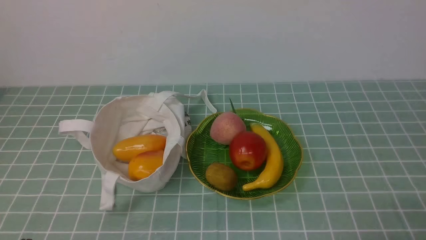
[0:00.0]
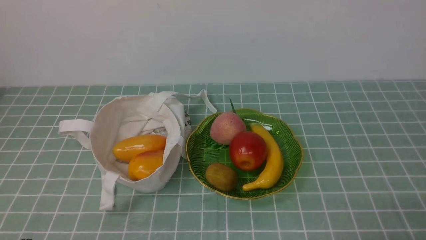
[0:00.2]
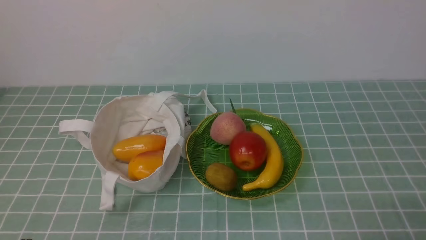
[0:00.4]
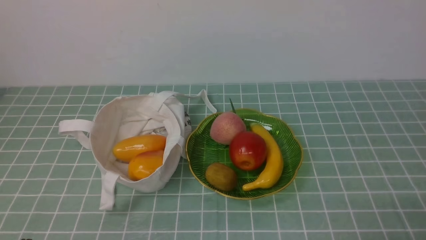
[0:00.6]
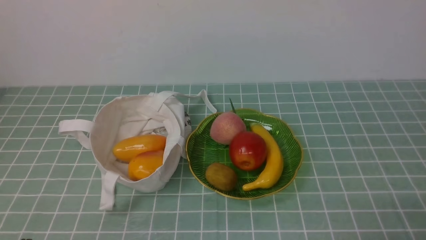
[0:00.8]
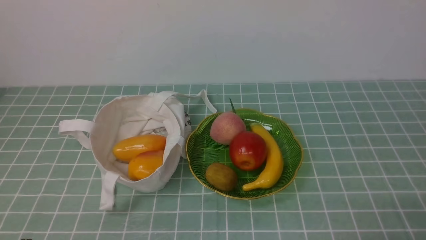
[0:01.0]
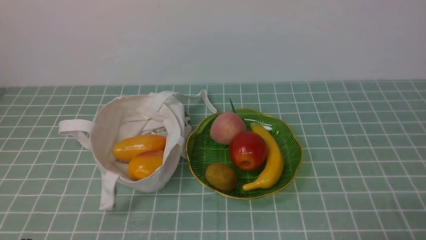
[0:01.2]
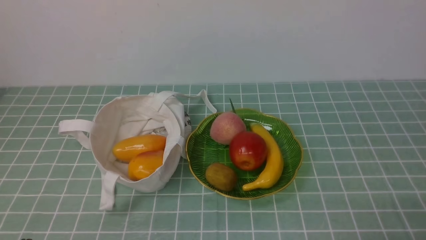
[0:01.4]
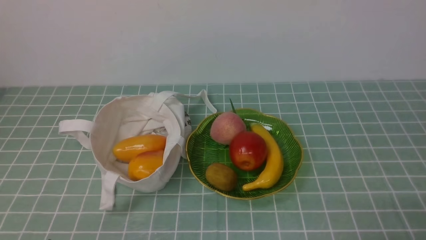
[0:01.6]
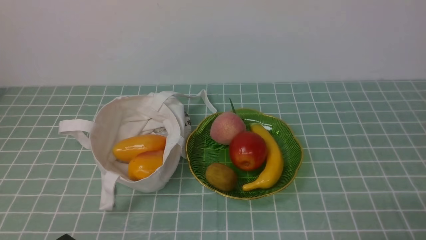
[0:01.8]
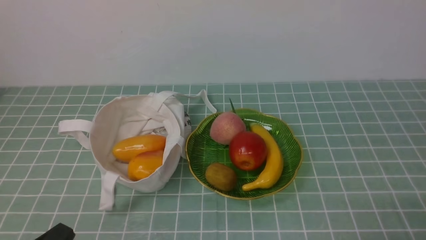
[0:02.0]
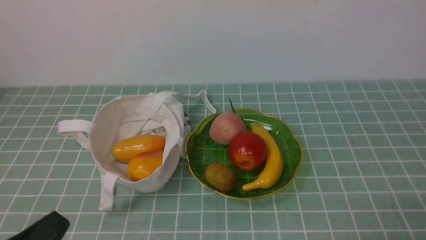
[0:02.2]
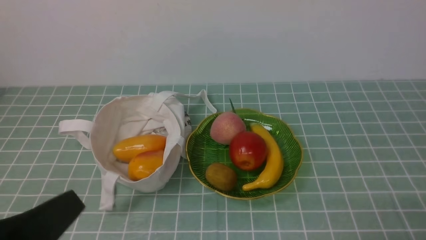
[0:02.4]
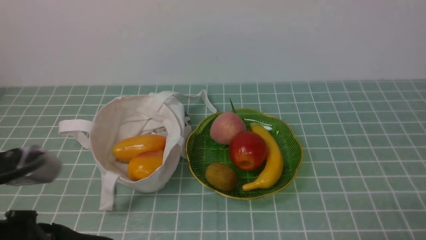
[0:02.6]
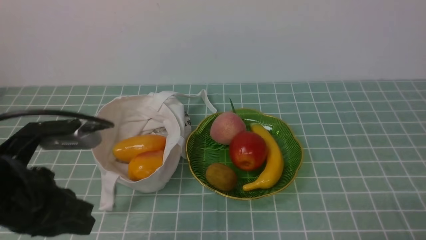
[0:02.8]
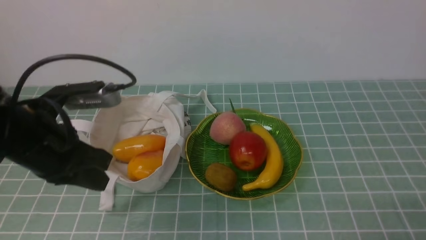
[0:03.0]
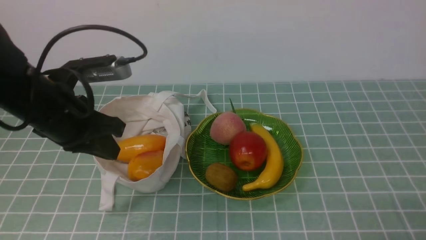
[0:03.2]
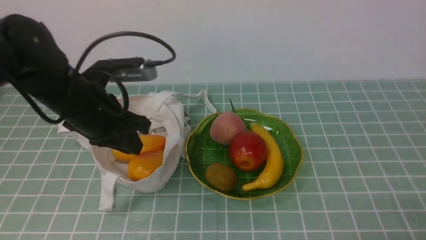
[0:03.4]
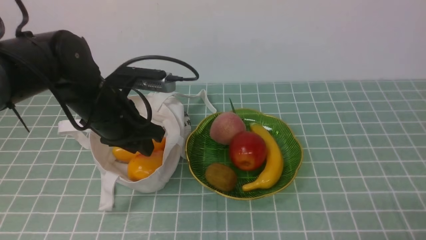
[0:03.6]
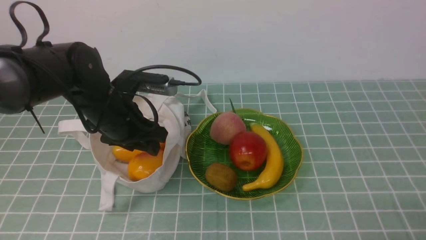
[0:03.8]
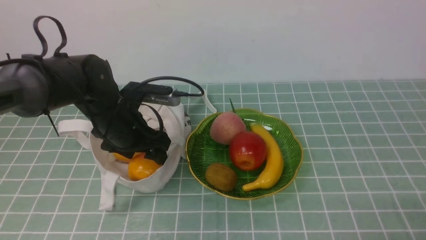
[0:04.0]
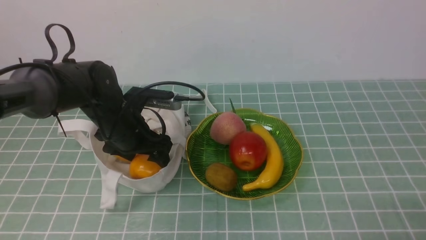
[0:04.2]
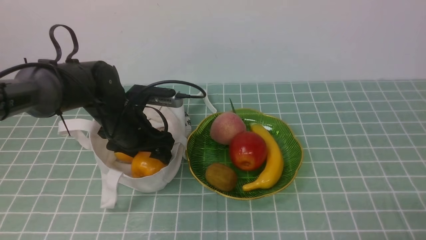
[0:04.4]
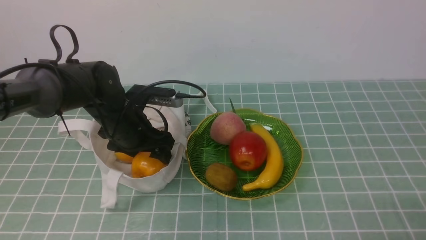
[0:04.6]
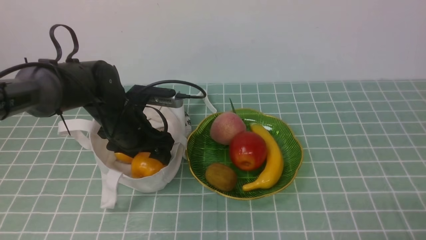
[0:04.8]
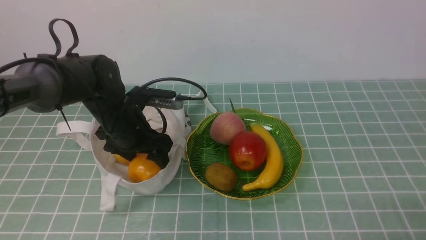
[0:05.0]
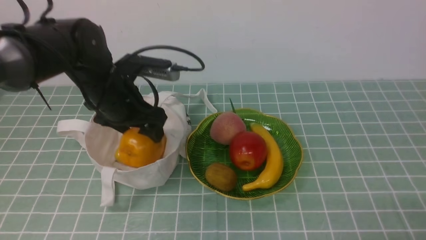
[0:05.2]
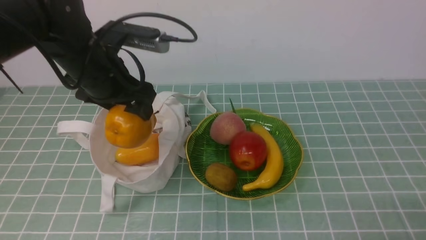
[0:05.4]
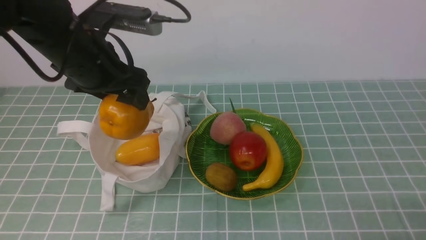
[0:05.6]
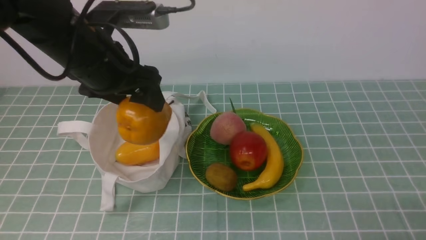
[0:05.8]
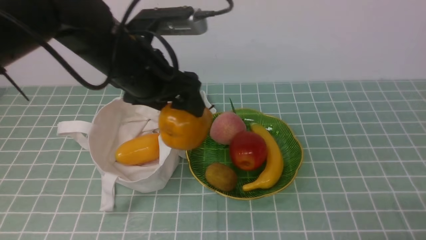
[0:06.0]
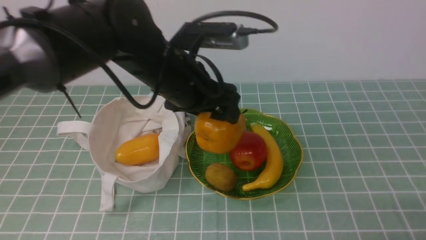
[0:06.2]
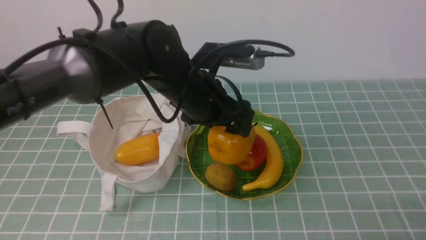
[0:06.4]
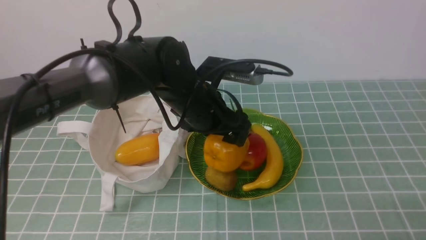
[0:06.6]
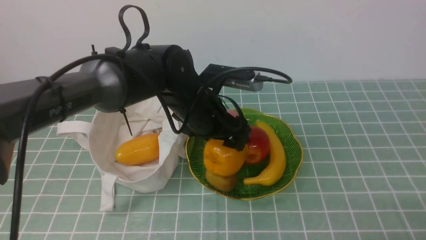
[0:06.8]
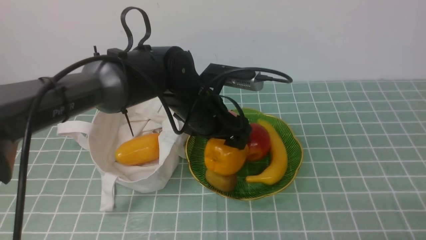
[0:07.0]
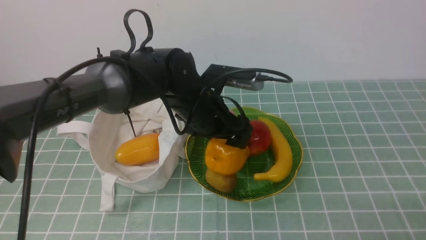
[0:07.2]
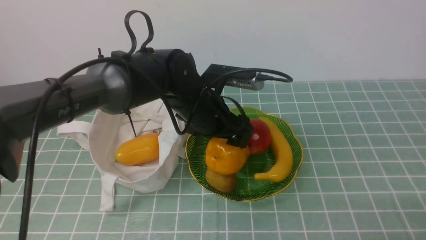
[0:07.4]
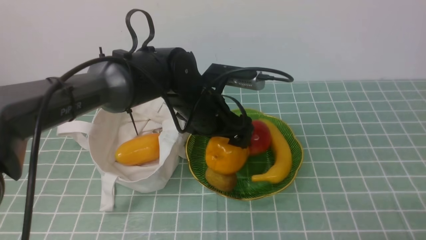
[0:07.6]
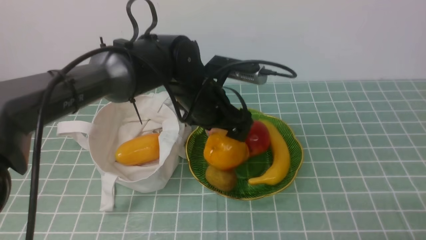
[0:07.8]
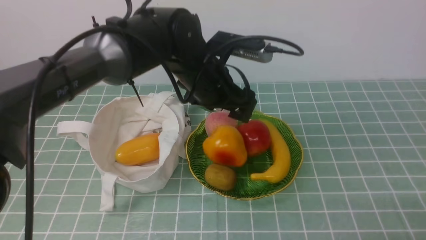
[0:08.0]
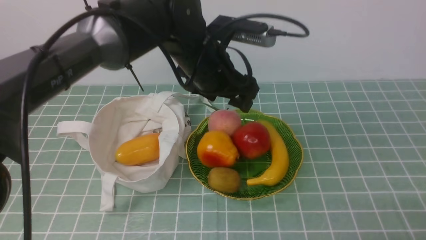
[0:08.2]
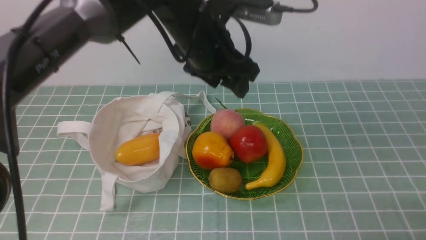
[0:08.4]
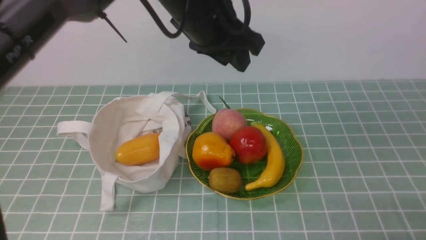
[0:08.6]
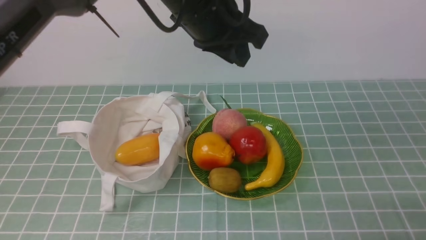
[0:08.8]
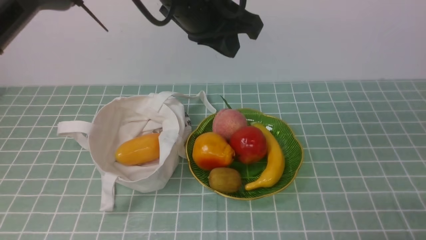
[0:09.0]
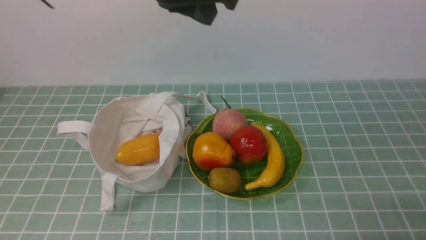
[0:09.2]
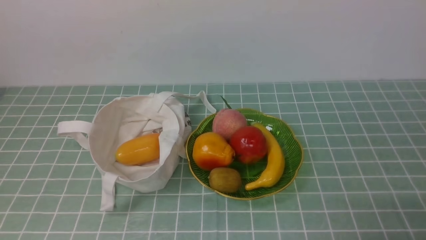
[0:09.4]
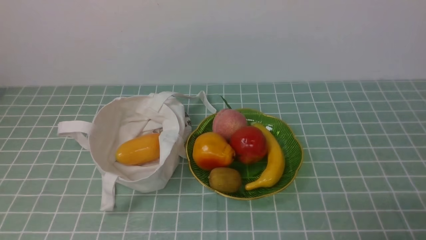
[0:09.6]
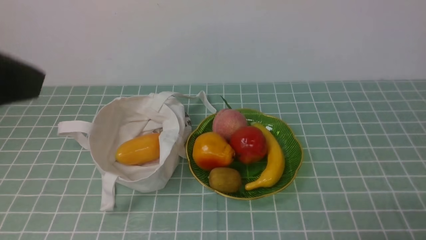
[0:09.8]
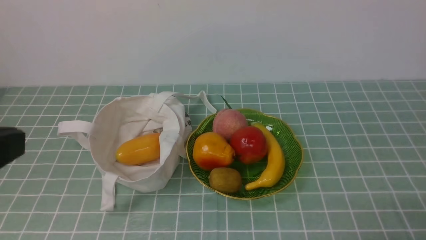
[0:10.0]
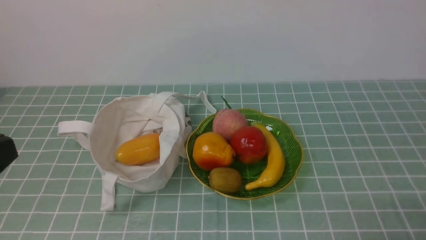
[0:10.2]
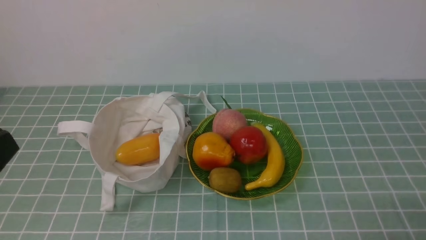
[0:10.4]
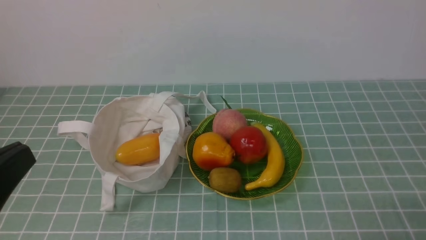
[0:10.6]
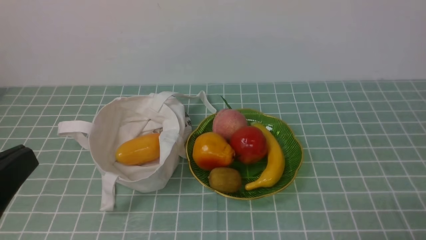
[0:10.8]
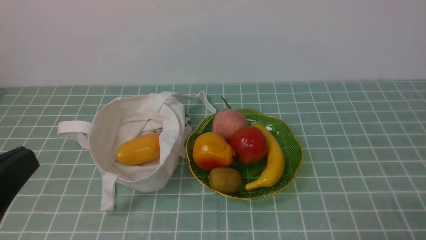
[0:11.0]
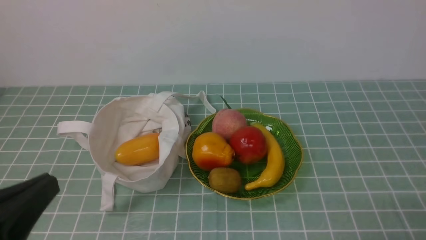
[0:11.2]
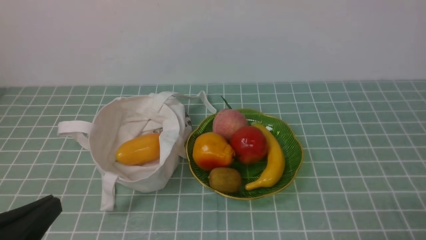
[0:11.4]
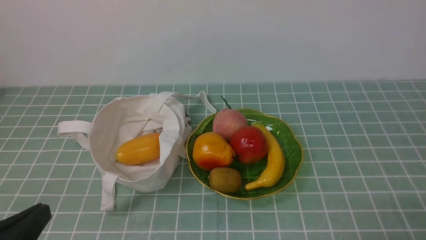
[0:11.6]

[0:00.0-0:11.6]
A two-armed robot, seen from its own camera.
Step, 0:00.0 to 0:05.4: use the left arm to grab a pear from the bag.
Step, 0:05.6 to 0:07.8: use the left arm to put the pear into the empty plate on the right.
0:01.4 to 0:02.8: The left gripper is displaced upward and forward by approximately 15 cm.
0:02.8 to 0:04.4: The left gripper shifts roughly 25 cm forward and downward, and opens up.
0:04.4 to 0:05.8: The left gripper travels upward by roughly 15 cm.
0:05.8 to 0:07.2: The left gripper moves to the right and downward, approximately 15 cm.
0:07.2 to 0:08.8: The left gripper heads upward, covering about 15 cm, and closes up.
0:08.8 to 0:10.2: The left gripper goes approximately 35 cm backward and to the left.
0:10.2 to 0:11.6: The left gripper goes about 15 cm downward.

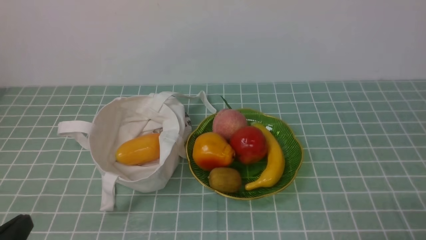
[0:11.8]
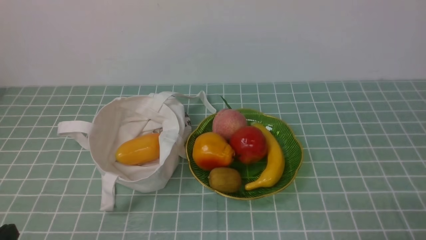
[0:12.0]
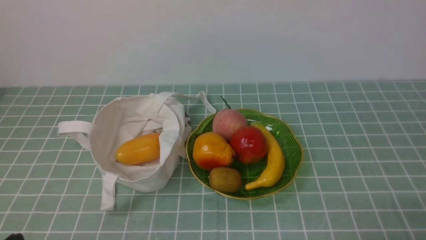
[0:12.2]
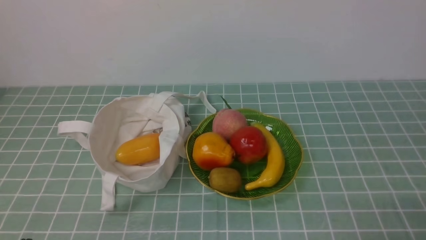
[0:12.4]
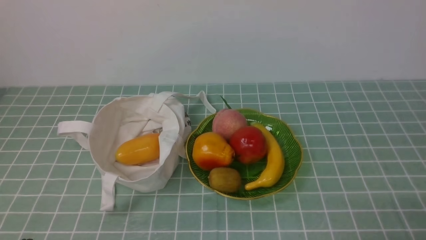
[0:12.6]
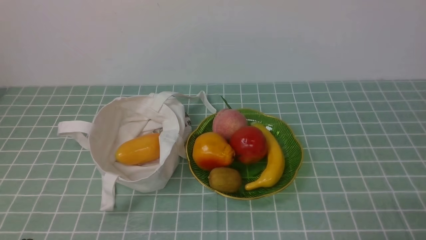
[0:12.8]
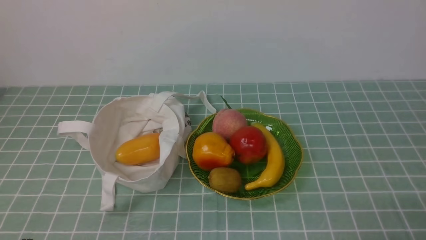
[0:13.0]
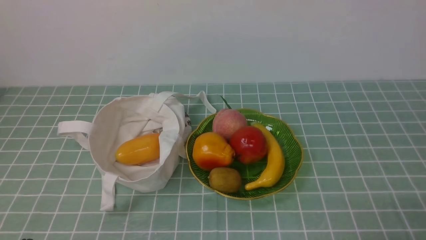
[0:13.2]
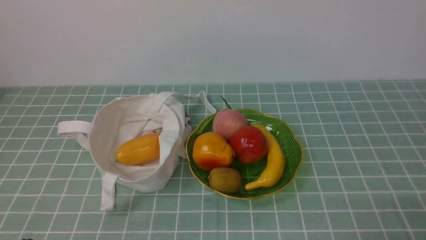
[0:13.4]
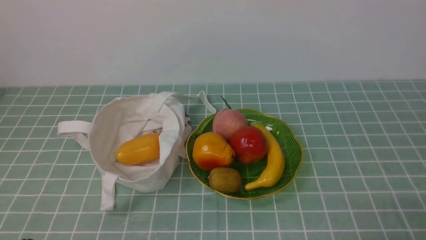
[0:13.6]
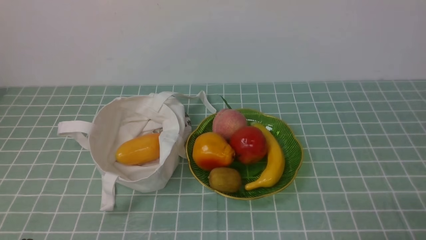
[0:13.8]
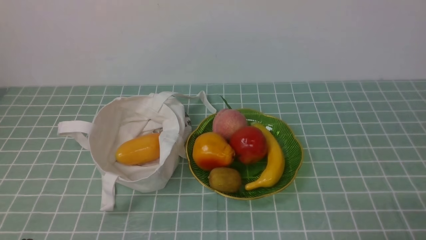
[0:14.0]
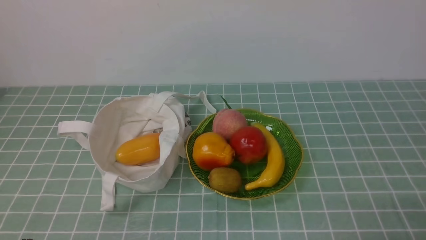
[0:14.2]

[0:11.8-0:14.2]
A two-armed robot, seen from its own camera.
0:11.8 to 0:13.0: The left gripper is displaced downward by roughly 5 cm.
0:13.0 to 0:14.2: Both grippers stay about where they are.

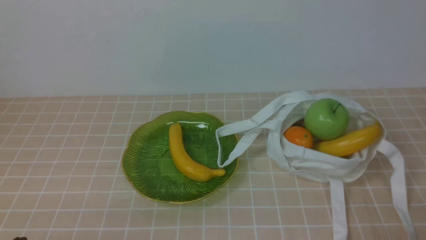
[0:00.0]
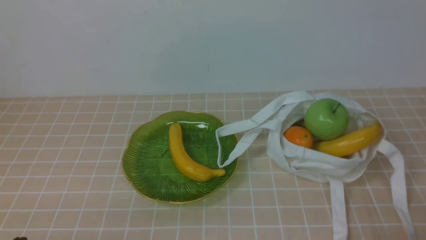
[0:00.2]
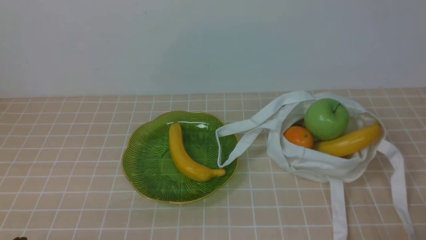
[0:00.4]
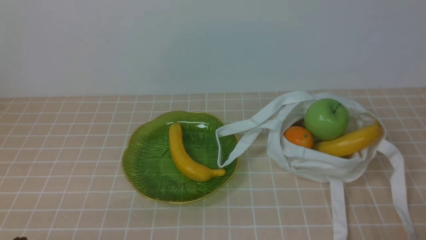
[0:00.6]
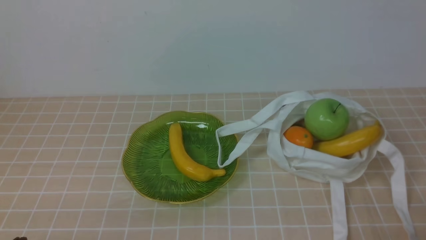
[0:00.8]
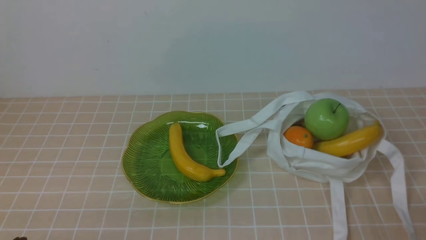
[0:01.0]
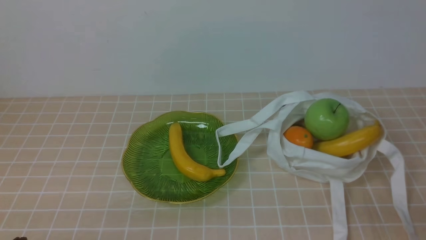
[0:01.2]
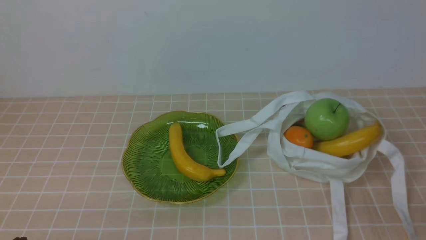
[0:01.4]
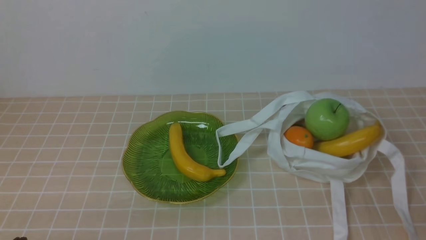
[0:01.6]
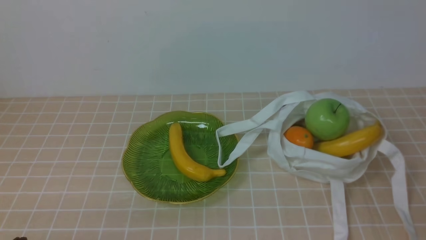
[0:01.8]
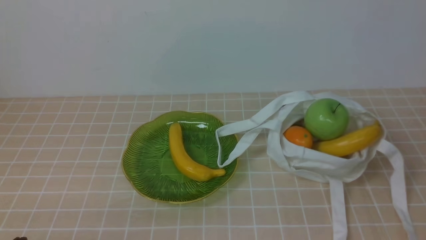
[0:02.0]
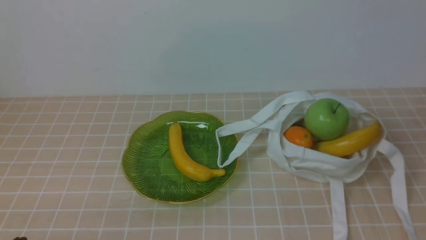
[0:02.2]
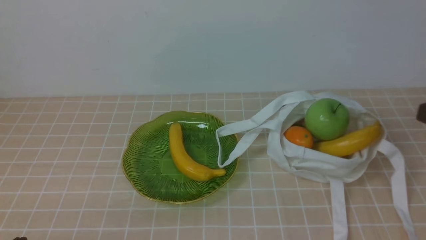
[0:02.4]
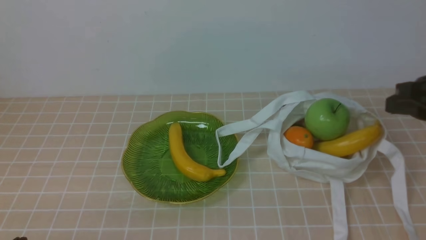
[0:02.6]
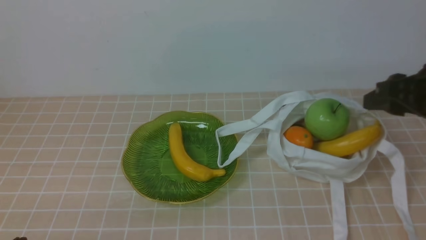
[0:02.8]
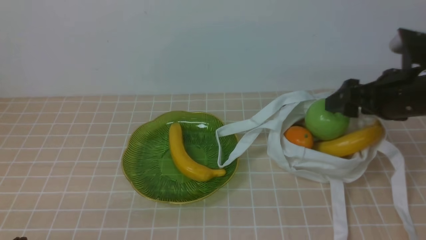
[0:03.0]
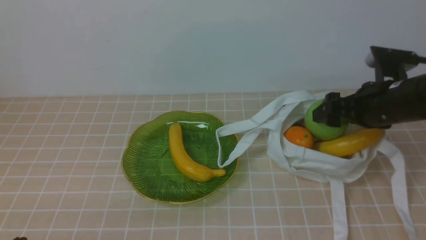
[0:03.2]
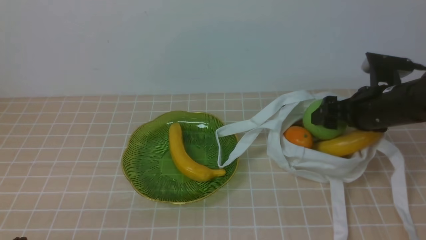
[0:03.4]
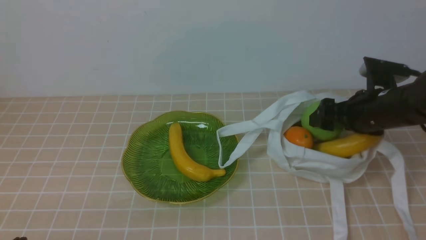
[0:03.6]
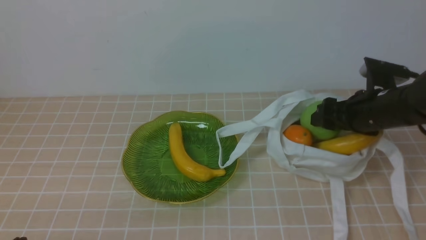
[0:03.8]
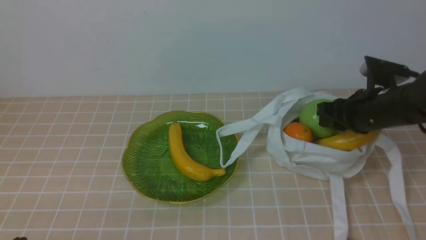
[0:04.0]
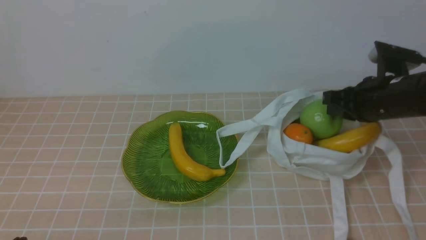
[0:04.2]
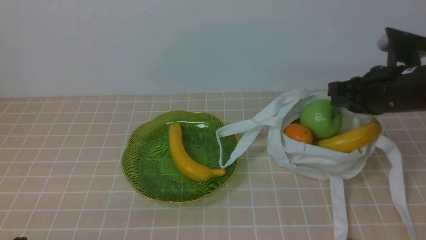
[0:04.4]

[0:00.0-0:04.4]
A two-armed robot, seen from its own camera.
0:01.4 to 0:03.0: The right gripper goes about 25 cm forward, and opens.
0:03.0 to 0:04.4: The right gripper closes its fingers.
